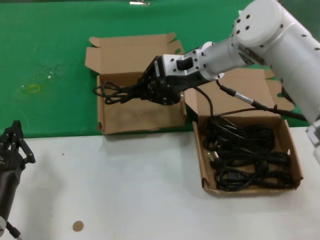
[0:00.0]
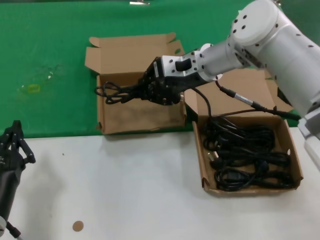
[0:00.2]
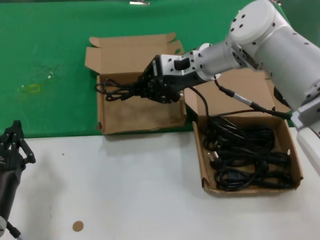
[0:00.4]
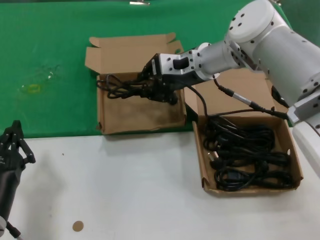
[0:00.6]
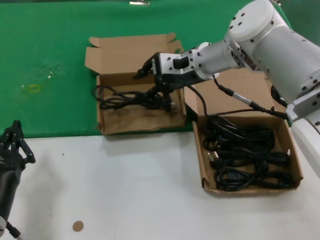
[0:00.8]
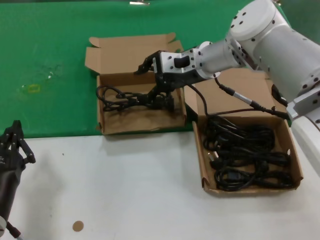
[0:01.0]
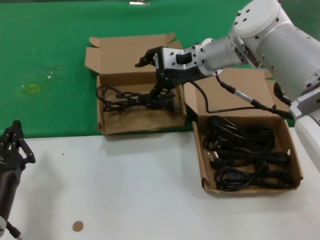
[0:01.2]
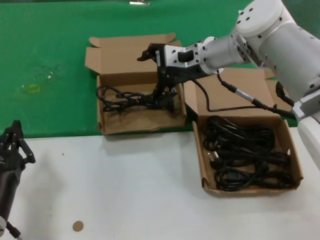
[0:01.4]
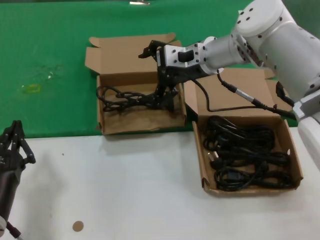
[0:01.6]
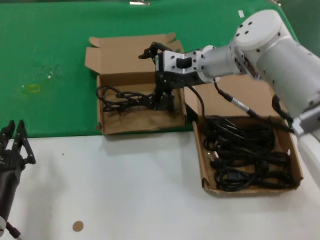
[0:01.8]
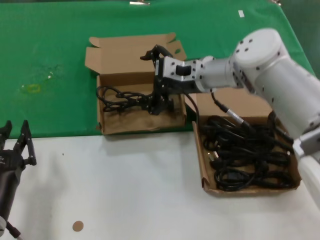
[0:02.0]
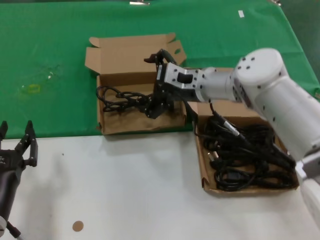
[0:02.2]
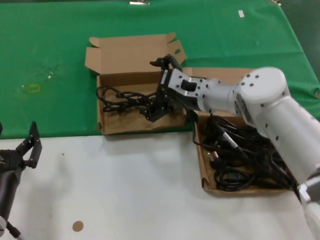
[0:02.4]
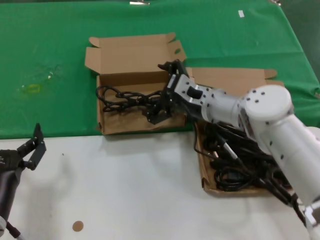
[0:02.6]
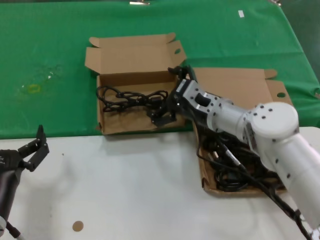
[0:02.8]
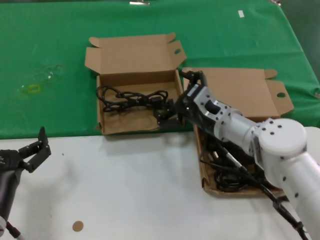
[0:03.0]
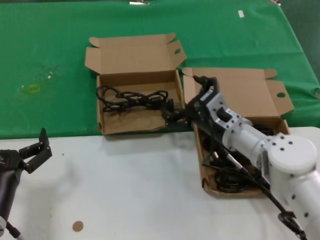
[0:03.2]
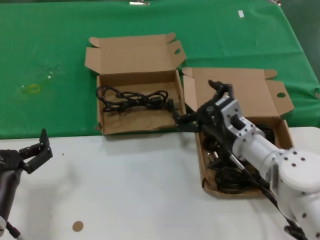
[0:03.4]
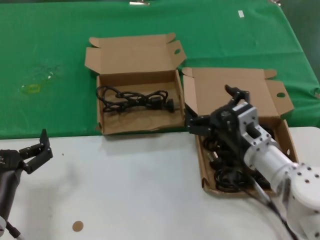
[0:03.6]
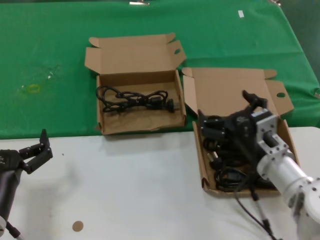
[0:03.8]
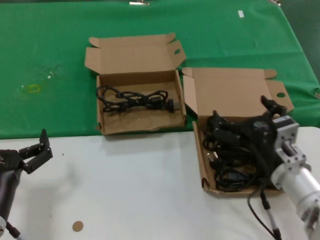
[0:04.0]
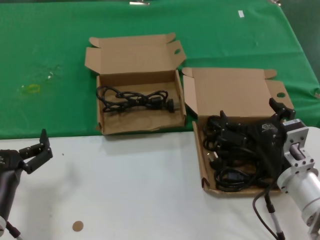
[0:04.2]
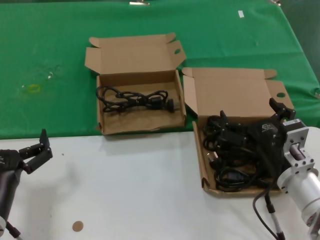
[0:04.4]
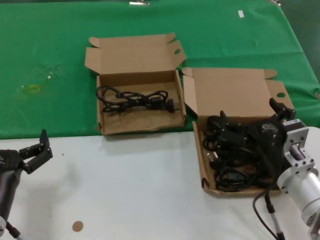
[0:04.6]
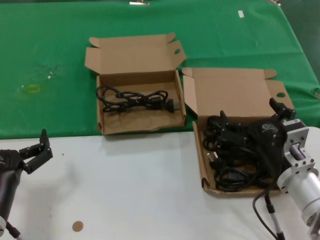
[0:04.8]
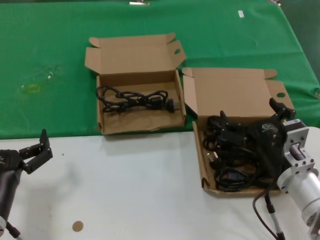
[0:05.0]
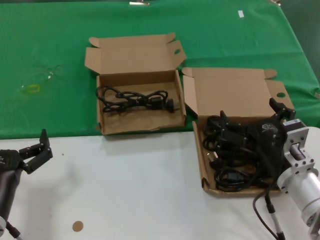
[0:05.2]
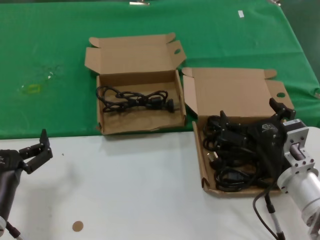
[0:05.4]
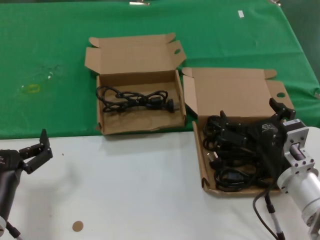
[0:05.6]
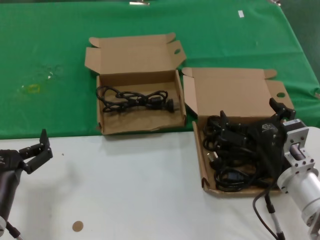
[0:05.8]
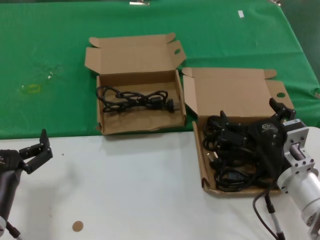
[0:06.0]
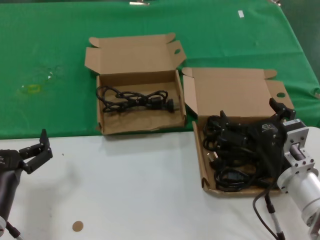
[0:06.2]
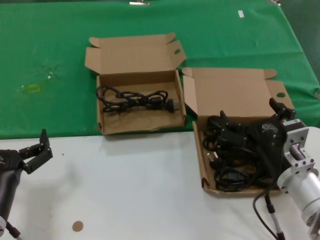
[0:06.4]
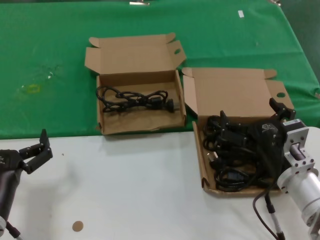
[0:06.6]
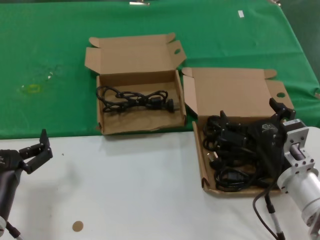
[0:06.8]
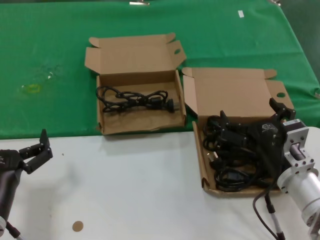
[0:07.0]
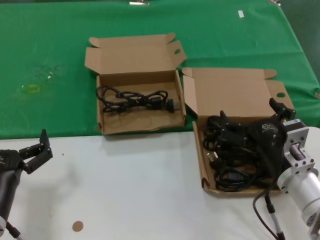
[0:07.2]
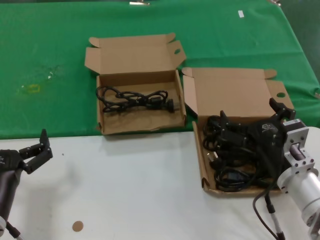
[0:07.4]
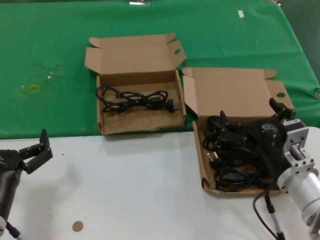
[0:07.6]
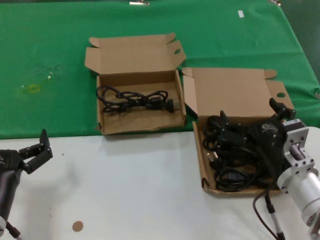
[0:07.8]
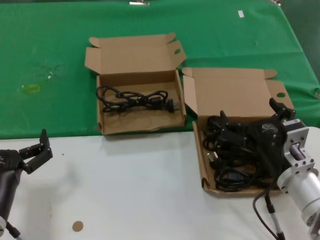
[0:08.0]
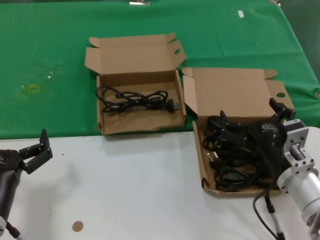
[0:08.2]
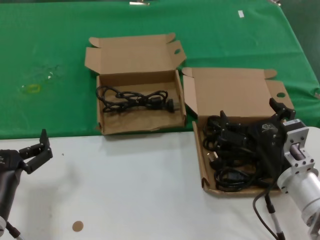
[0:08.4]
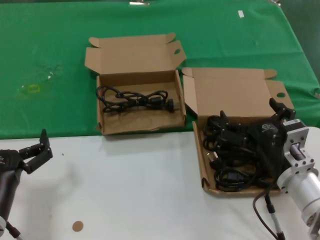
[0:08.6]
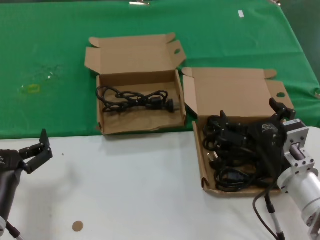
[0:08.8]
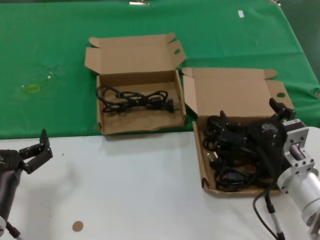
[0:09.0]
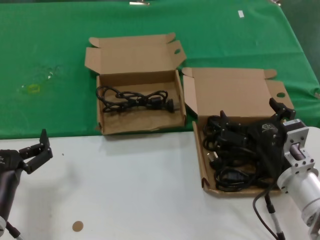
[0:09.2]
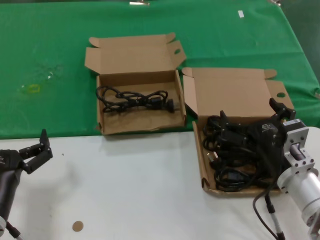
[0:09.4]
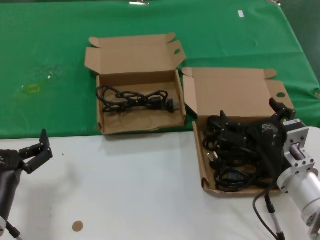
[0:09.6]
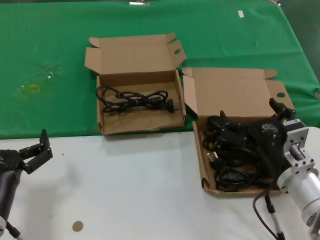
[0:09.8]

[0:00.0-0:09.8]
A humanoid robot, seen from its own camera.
Task of the whole recording: take the parts from the box containing them and put them into an empty box.
0:00.0 to 0:01.4: The hands move only a little.
0:01.4 to 0:02.8: The right hand goes approximately 15 cm downward and backward.
0:02.8 to 0:04.2: The right hand moves backward and to the right, approximately 20 cm.
0:04.2 to 0:09.8: Both hands stay put.

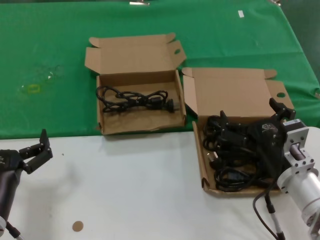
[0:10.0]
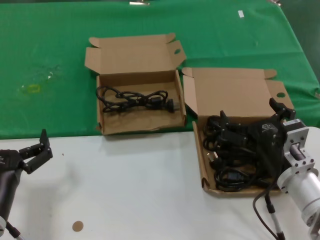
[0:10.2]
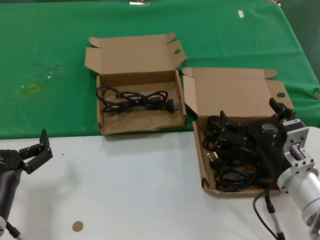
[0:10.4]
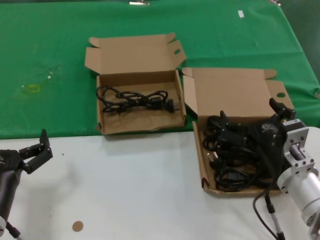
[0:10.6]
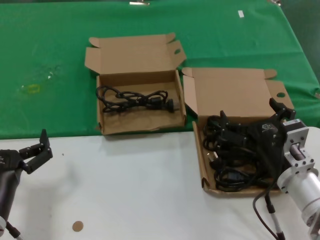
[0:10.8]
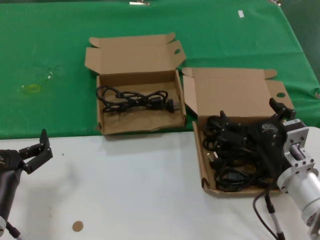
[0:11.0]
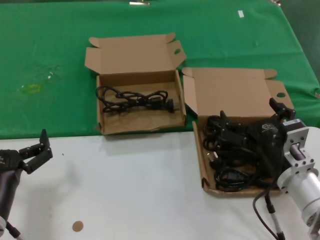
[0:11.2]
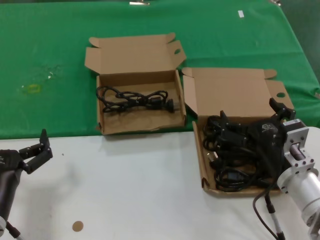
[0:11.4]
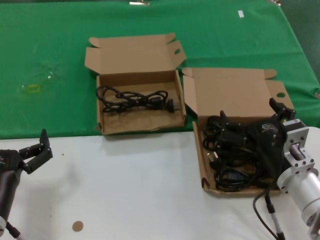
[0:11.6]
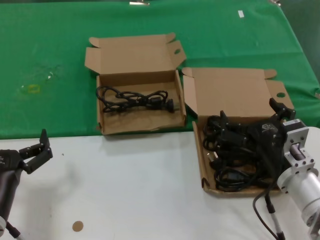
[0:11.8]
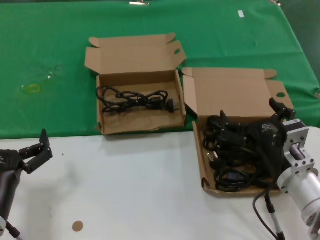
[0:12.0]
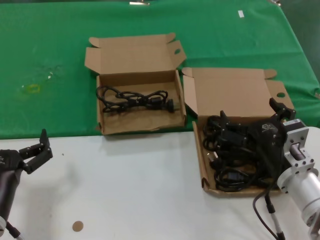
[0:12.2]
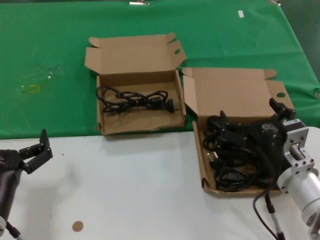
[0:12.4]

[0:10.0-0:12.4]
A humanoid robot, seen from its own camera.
Task of the whole recording: take the parts from the box containing them and put them into an empty box.
0:10.0 to 0:12.4: Neither hand changes place.
